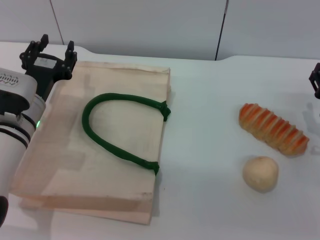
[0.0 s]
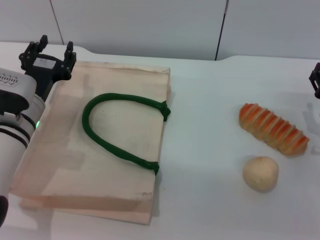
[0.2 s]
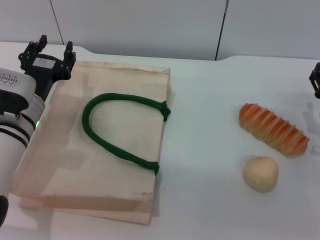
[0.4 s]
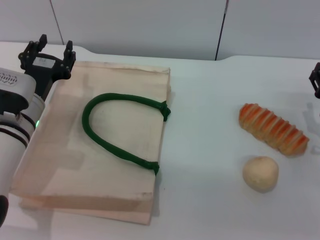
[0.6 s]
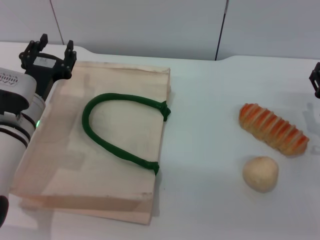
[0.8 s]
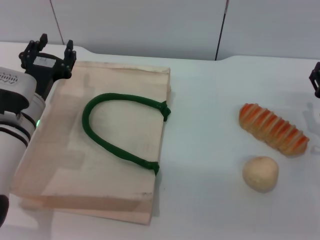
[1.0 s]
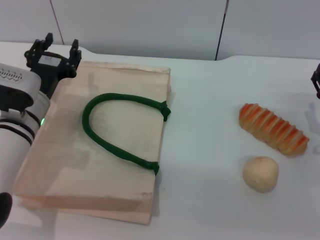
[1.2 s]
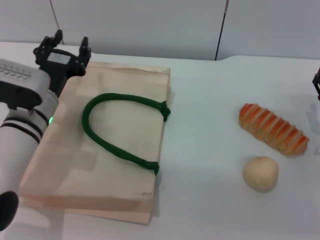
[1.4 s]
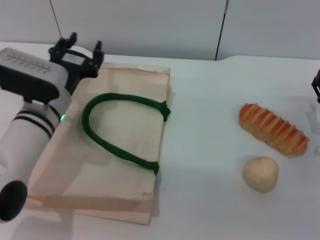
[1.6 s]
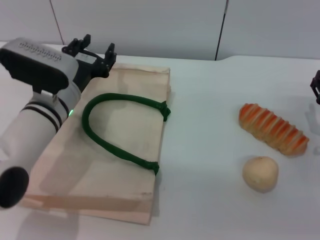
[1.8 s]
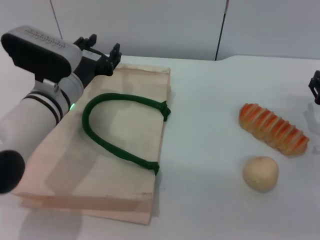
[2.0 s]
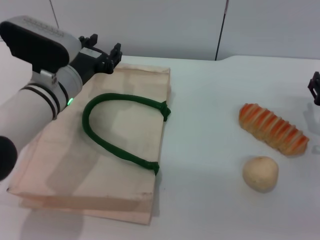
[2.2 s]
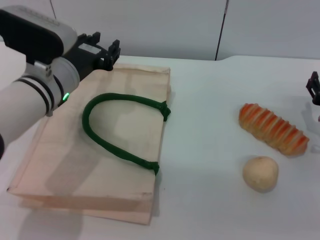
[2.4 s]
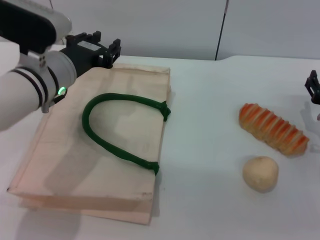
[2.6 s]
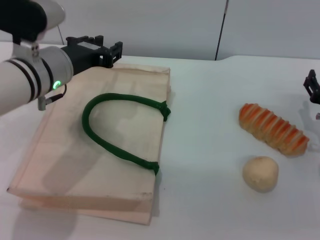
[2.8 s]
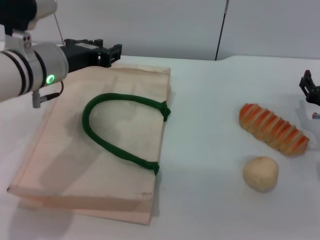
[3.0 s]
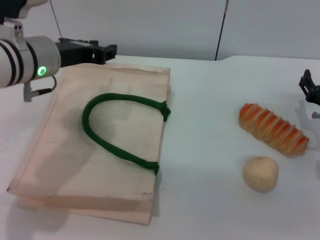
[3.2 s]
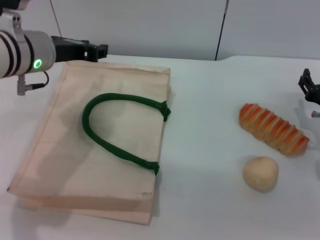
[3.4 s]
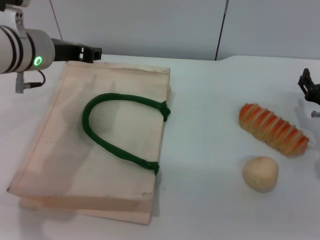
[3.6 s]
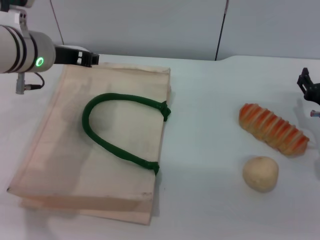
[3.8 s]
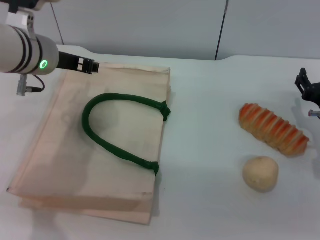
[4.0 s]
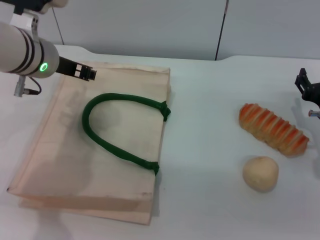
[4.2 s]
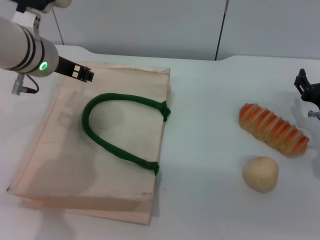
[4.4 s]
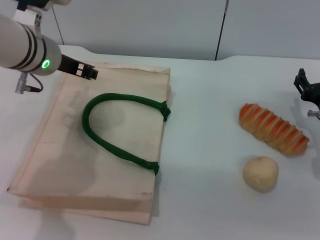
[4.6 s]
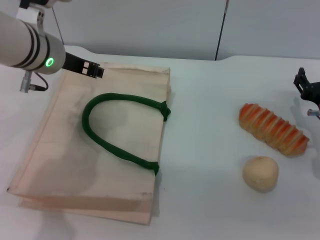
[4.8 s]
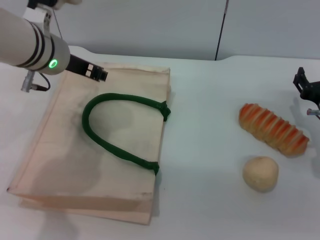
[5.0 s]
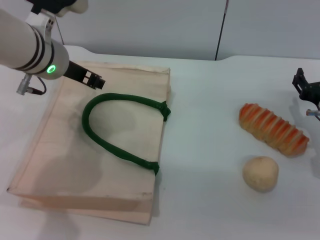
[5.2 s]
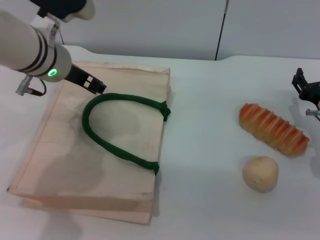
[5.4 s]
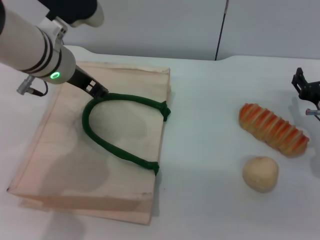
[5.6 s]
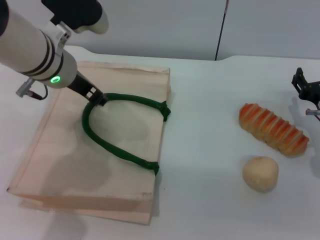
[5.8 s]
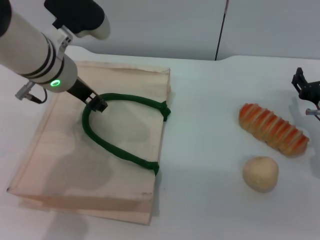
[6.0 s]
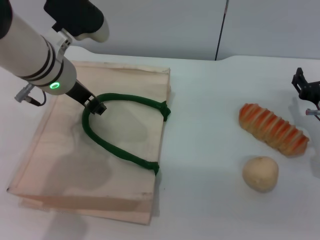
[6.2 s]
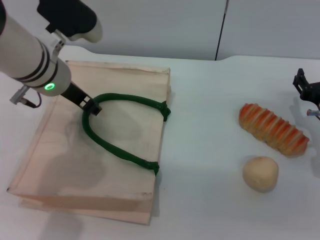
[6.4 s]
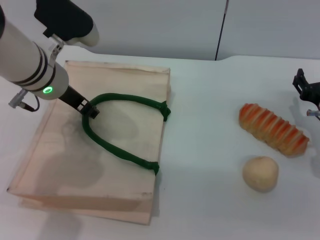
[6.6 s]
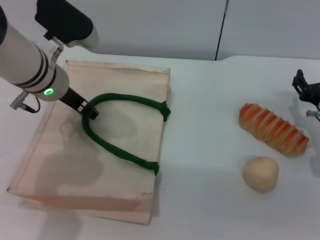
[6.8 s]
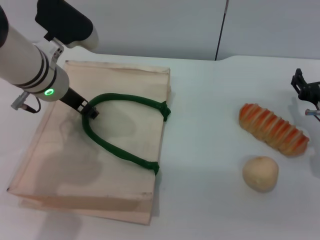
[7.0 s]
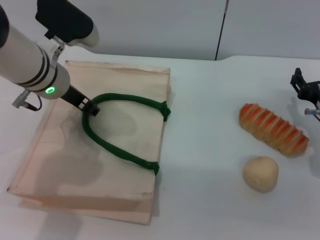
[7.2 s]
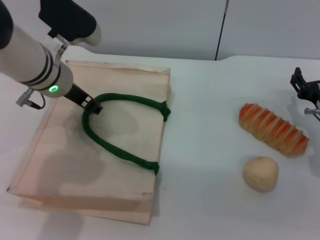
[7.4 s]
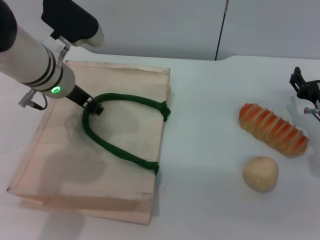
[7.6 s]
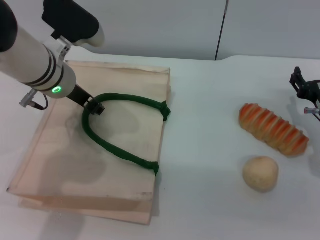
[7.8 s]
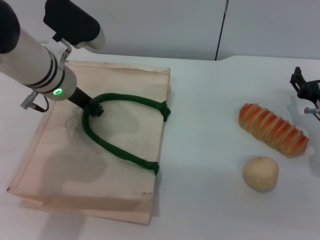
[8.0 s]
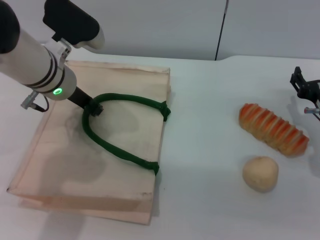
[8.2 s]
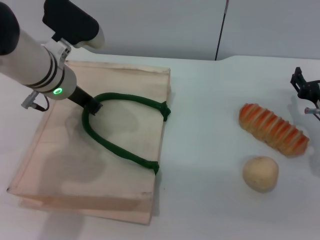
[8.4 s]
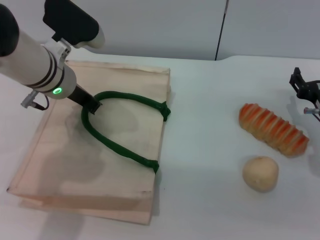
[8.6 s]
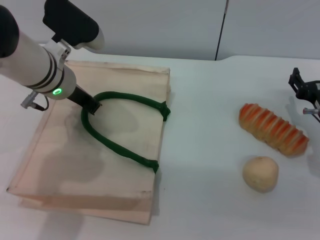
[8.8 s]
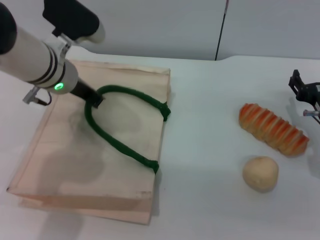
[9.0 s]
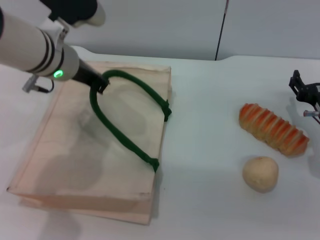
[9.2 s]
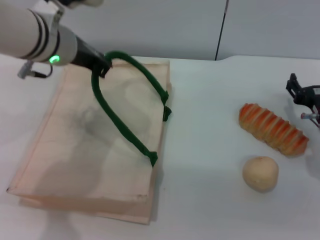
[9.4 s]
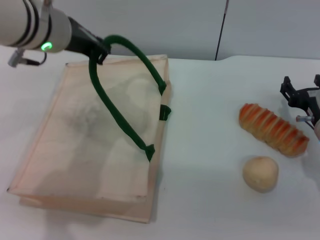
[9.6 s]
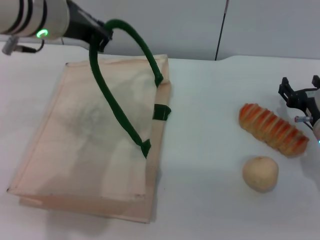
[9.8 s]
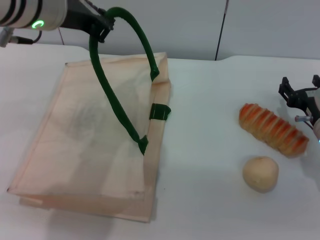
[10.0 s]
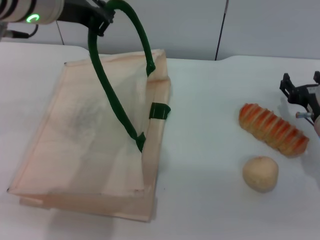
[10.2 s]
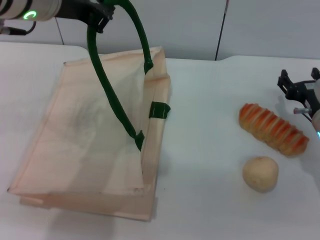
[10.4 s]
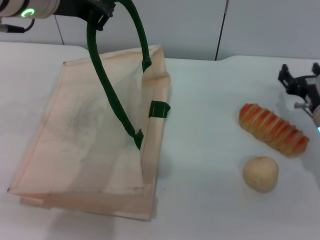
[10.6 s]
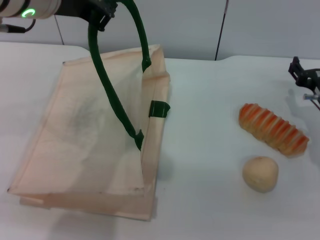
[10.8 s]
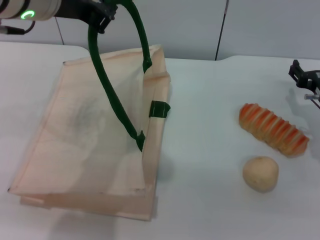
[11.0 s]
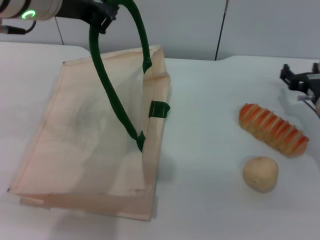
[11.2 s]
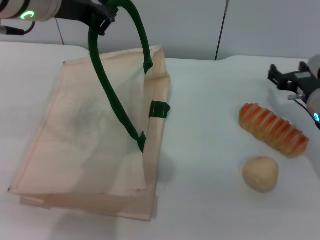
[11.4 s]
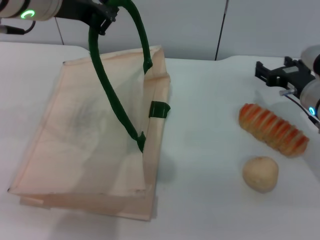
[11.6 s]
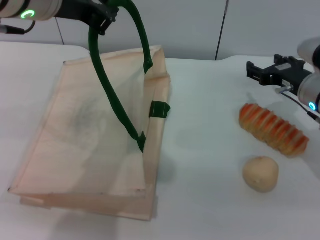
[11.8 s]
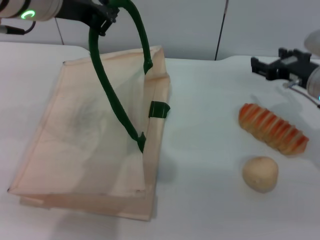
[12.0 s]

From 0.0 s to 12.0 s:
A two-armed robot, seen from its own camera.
Task of the whole recording: pick up the bread and egg yolk pastry from the table and place it in the white handbag.
Step, from 0.0 s to 9.4 s: Lift the woven bag with the left gripper to open it.
From 0.0 s to 1.6 s: The grippers make only small movements.
From 1.6 s to 3.0 s: The left gripper travels upward by about 10 cm.
From 6.0 s to 7.6 s: The grippers stay close to where they were, moving slightly.
From 7.6 s to 9.0 s: The left gripper closes up.
From 9.0 s to 10.4 s: The left gripper moves upward and backward, about 15 cm.
From 10.4 s to 12.0 s: The right gripper moves upward, some 5 cm.

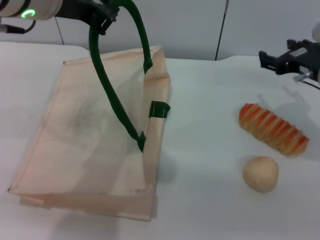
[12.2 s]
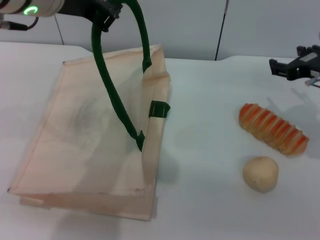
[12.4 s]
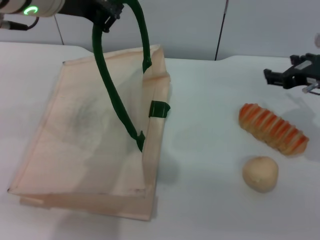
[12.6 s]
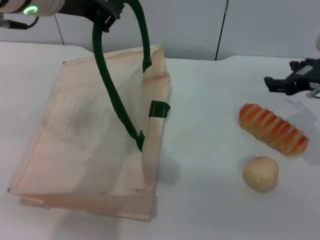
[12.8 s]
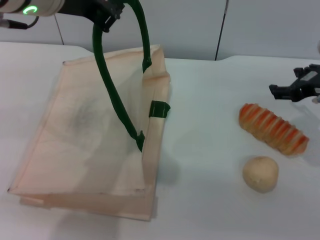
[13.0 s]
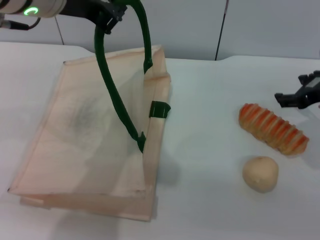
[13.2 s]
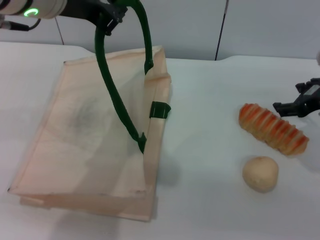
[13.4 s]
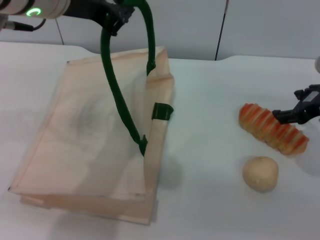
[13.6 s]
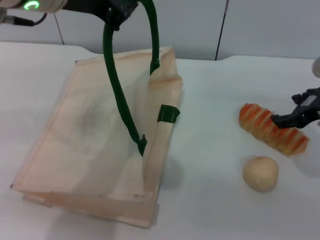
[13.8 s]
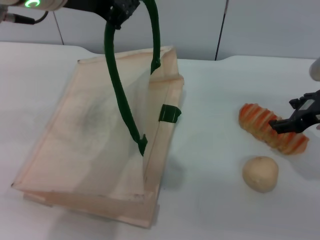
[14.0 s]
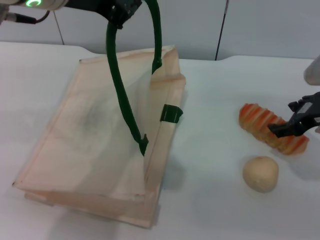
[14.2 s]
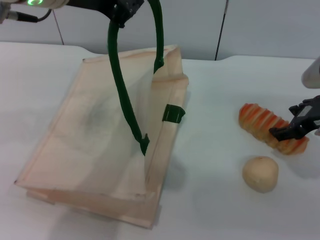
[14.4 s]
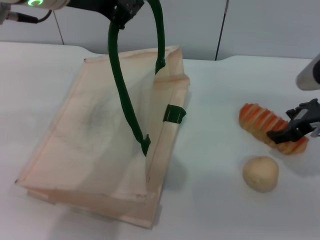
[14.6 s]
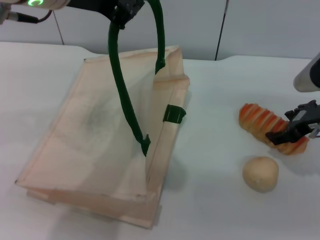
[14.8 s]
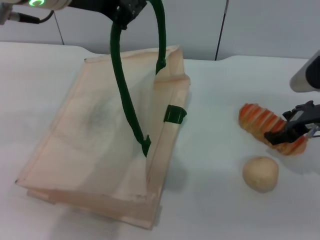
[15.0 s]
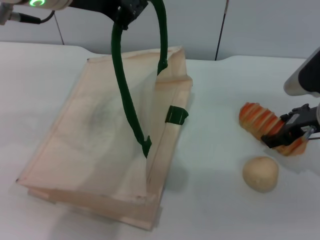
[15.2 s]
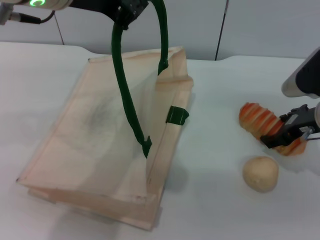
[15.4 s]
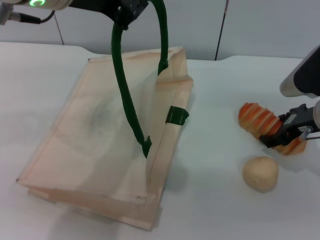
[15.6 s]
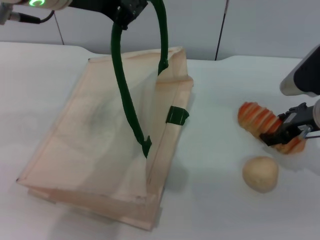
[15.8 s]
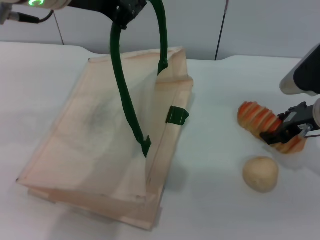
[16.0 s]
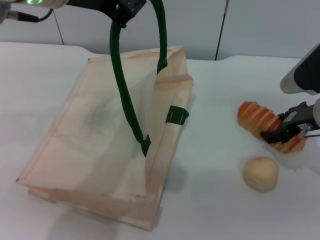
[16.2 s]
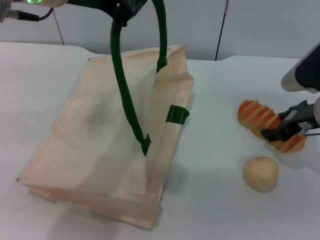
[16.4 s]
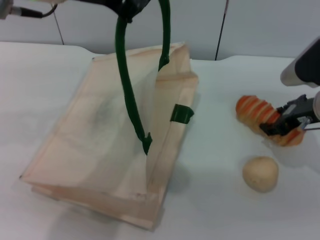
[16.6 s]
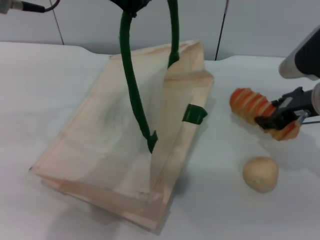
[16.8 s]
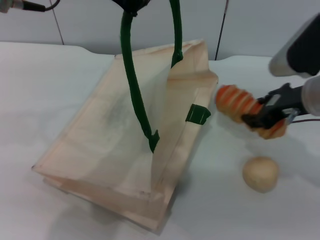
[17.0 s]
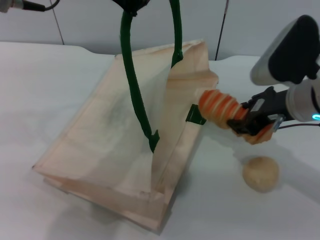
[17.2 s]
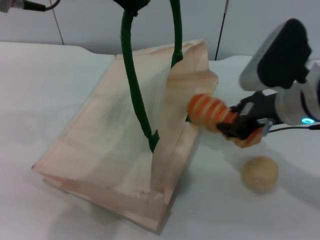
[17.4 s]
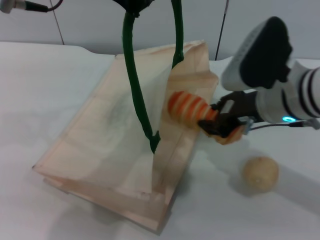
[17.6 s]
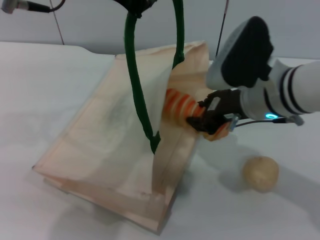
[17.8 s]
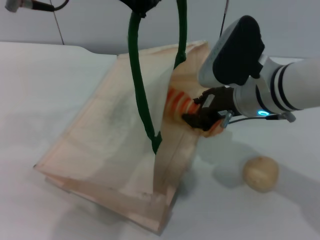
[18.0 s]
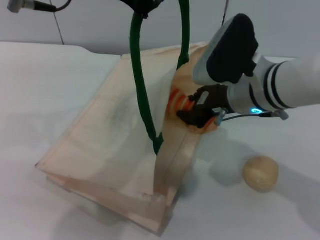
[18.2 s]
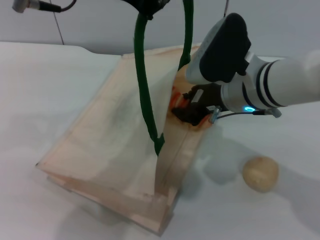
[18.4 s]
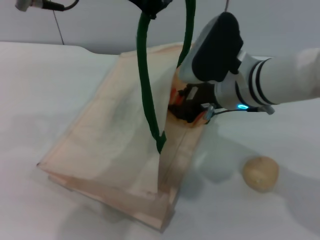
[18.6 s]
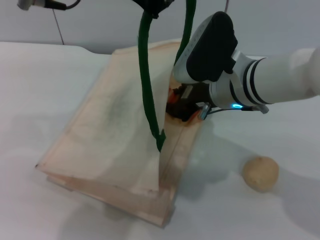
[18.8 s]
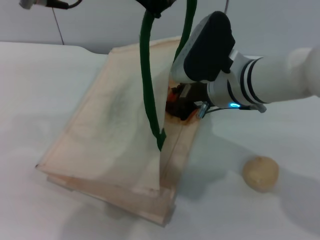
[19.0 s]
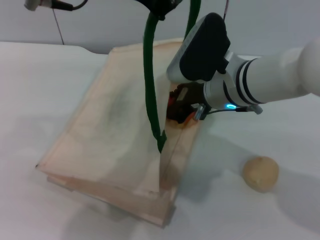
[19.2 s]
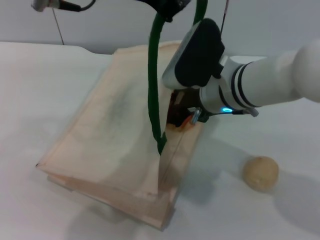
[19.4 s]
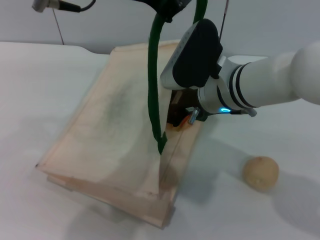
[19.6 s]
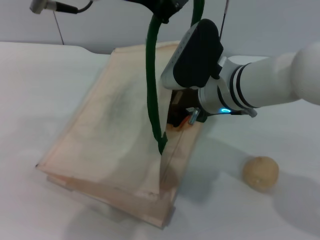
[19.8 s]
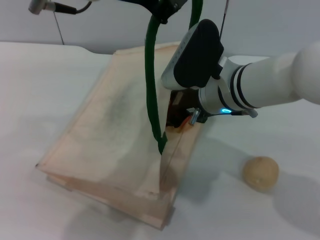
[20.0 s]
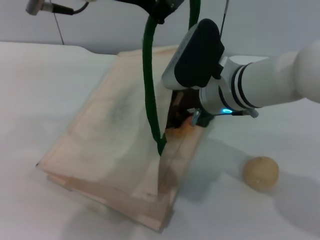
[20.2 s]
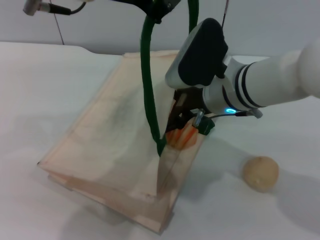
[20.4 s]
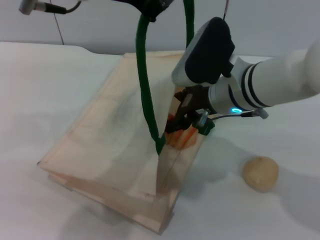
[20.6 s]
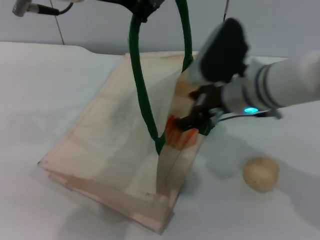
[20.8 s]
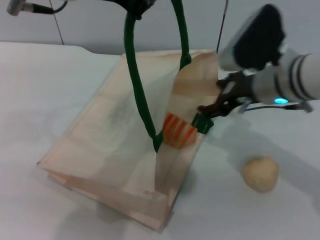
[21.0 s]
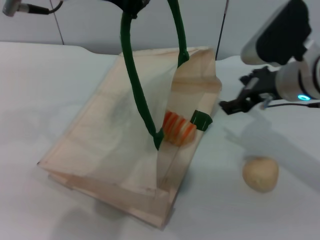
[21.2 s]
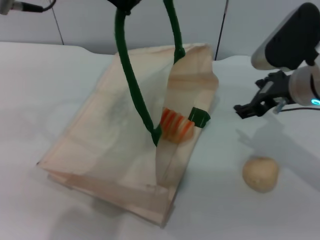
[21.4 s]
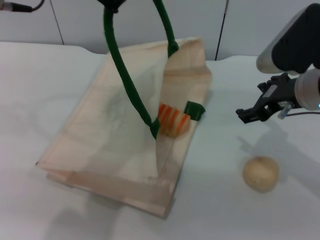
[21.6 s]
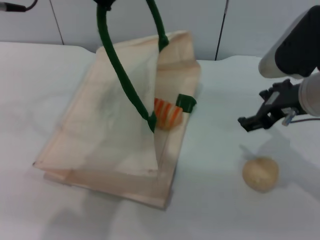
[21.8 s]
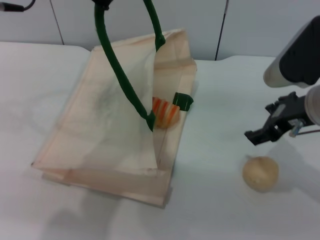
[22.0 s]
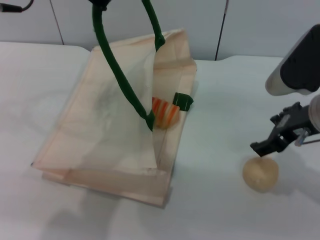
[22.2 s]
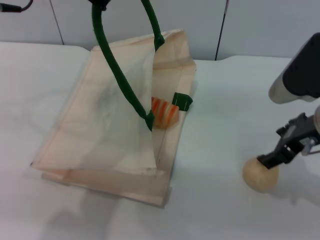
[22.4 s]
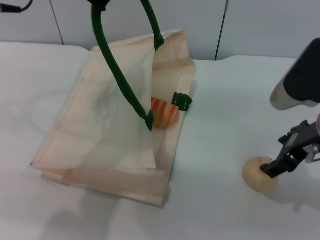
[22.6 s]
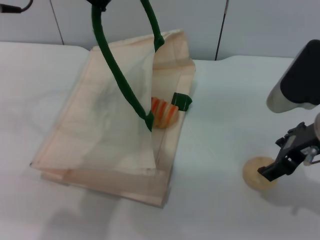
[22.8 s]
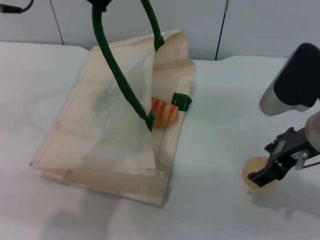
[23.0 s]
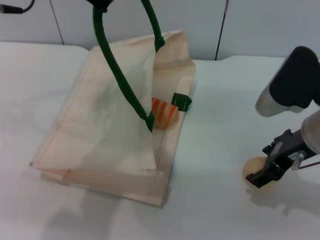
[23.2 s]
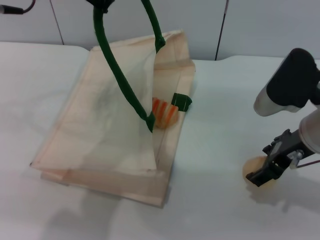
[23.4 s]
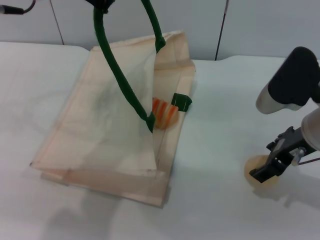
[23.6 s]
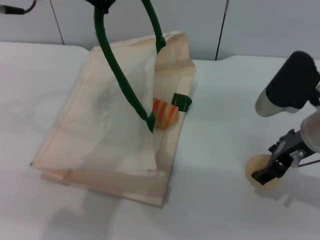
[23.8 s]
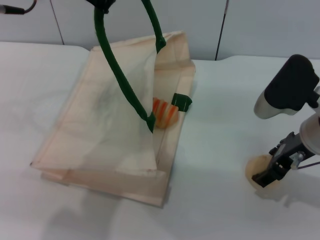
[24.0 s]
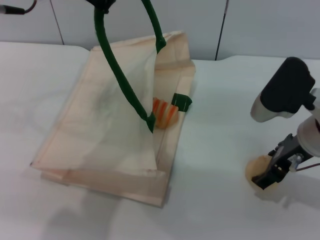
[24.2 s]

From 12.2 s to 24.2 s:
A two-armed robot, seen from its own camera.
Task of the whole recording: pick up the bread and egg yolk pastry from the table and place it in the white handbag.
Step, from 12.2 s to 16.8 s: Pick up the bread with the right gripper.
Step, from 17.0 s to 21.2 s: Place the bread into the woven bag with the right gripper.
From 13.8 s to 15.2 s: The grippers move only a little.
From 15.2 s to 16.6 s: Both grippers stay put.
From 16.6 s to 18.2 s: The right gripper shifts approximately 15 cm to the left, and closes.
From 18.2 s to 19.8 s: There are only small adjustments of the grippers.
From 19.8 s to 21.2 s: The right gripper goes about 10 cm to the right, and opens up.
From 21.2 s to 22.6 s: The right gripper heads backward, covering about 5 cm.
From 22.6 s to 24.2 s: The grippers move only a little.
